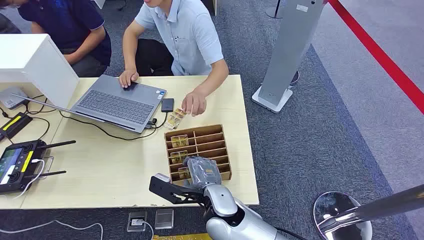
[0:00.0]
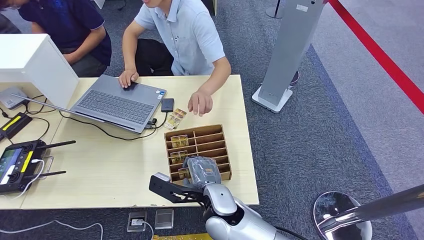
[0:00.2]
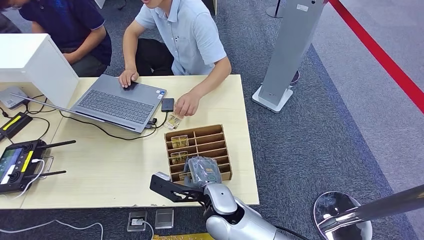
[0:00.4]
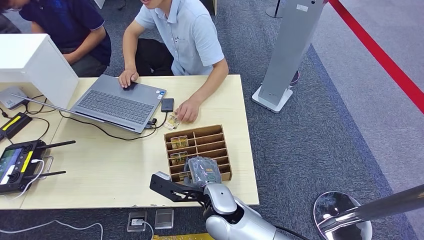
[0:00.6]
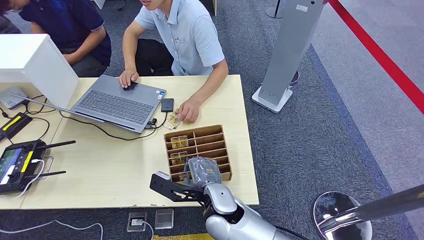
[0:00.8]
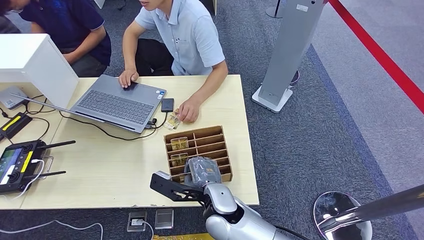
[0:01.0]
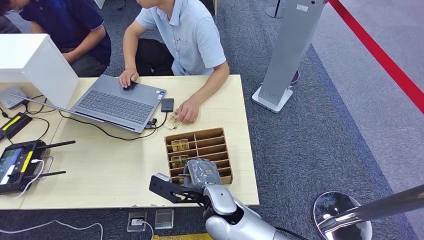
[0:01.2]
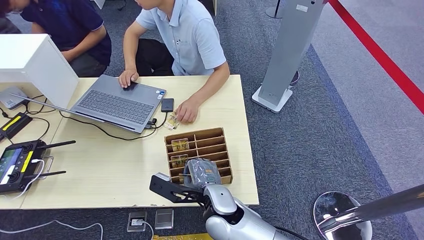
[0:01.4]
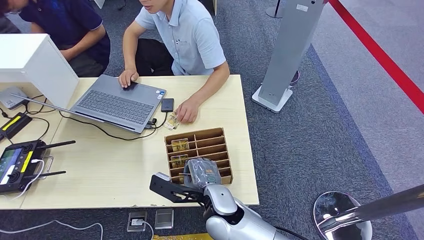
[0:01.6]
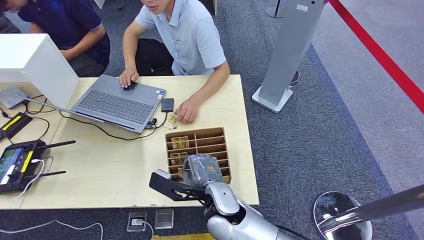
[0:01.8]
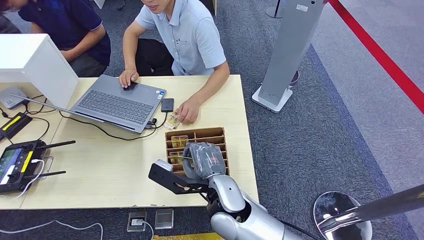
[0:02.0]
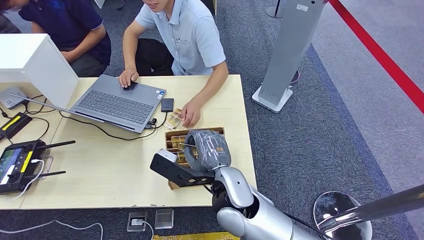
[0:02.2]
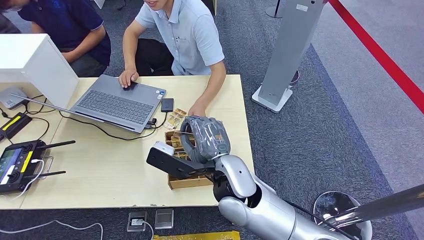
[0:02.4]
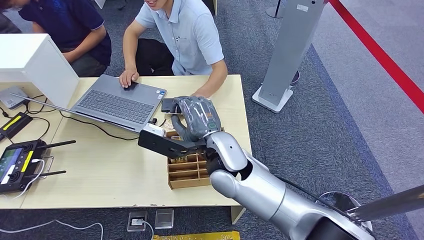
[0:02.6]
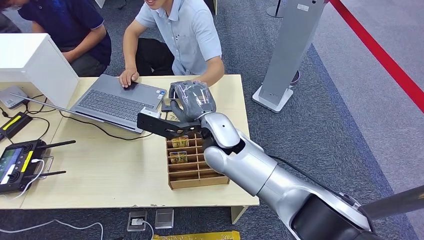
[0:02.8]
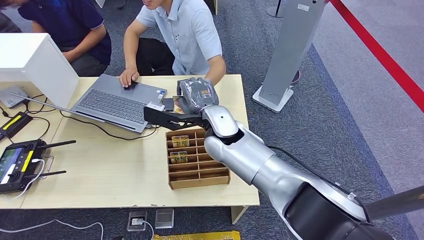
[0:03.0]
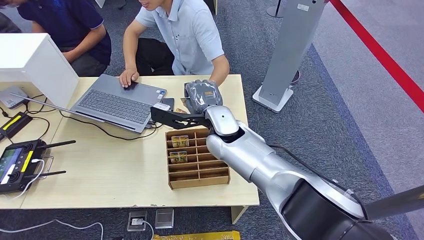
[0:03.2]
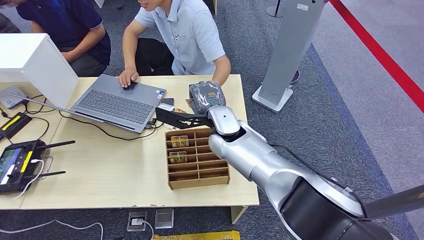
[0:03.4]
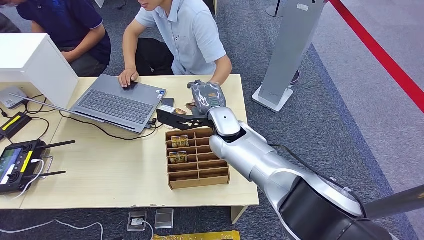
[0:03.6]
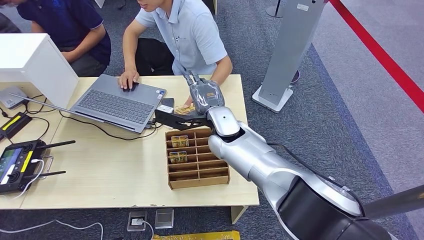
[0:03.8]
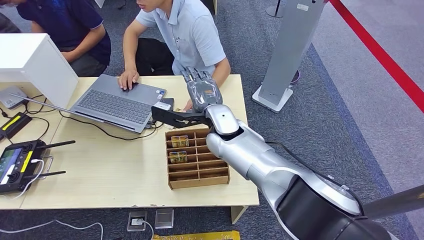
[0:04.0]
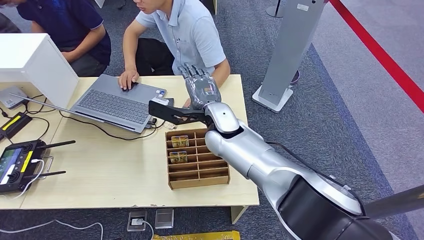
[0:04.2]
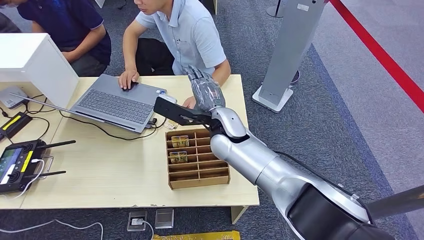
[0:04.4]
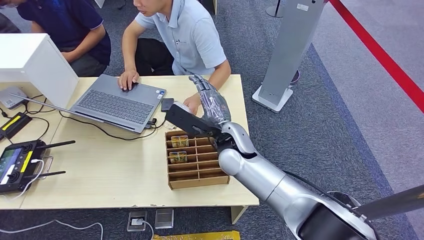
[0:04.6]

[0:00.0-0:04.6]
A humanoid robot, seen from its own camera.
Step, 0:00.0 to 0:02.2: Pick up the key card from the card box.
Step, 0:02.6 to 0:04.6: Hand the key card to the target.
0:01.6 to 0:03.0: The right hand goes approximately 20 cm forward and upward.
0:03.0 to 0:04.6: The right hand moves roughly 5 cm.
